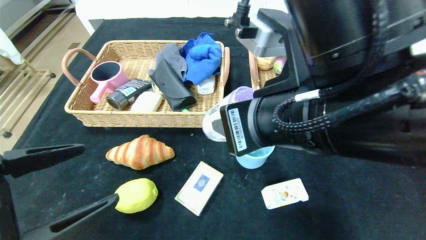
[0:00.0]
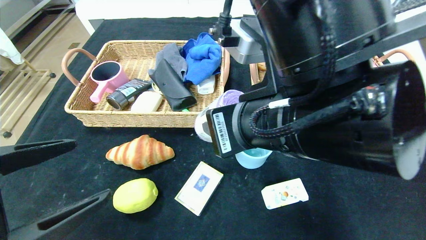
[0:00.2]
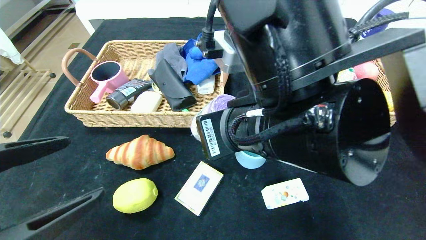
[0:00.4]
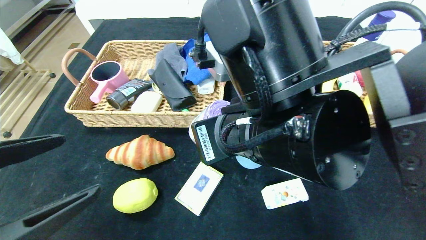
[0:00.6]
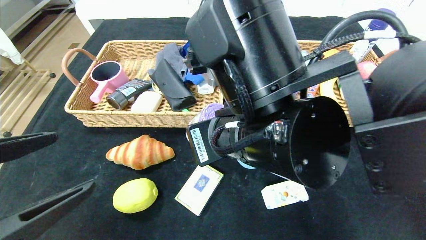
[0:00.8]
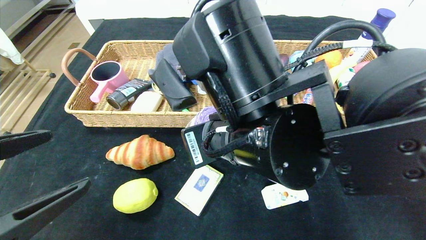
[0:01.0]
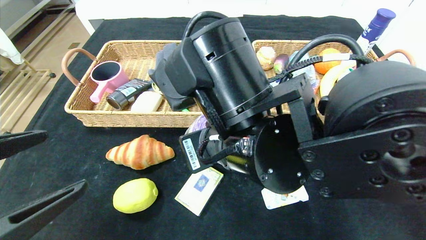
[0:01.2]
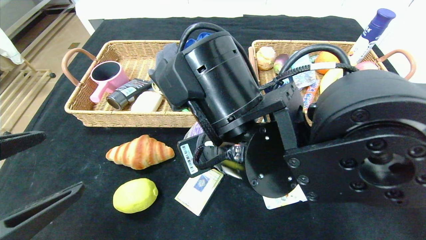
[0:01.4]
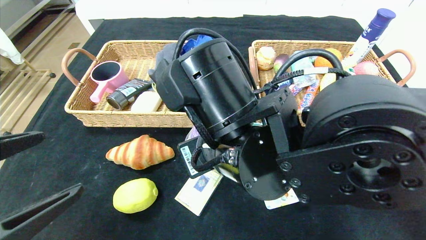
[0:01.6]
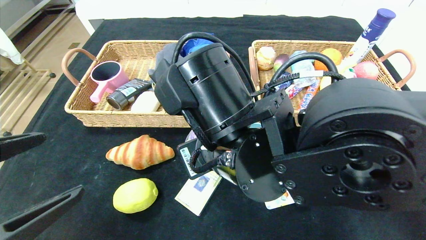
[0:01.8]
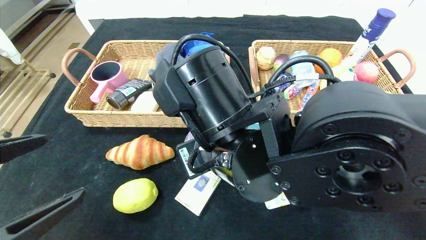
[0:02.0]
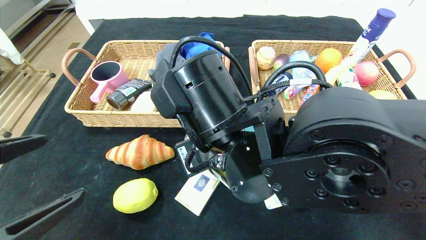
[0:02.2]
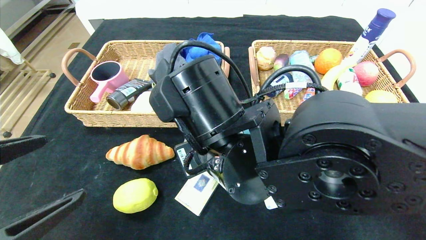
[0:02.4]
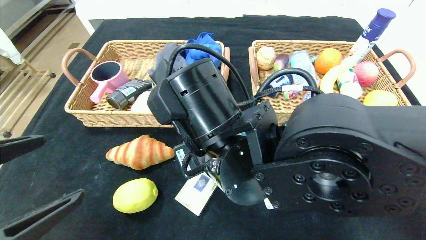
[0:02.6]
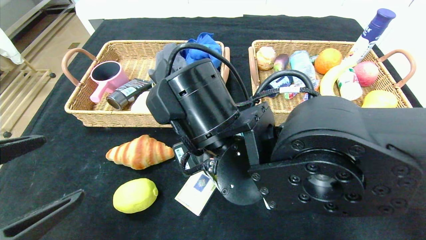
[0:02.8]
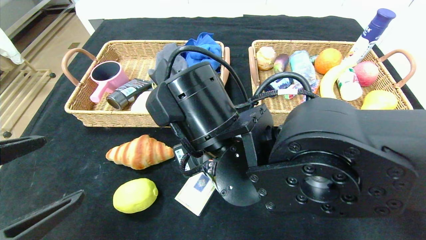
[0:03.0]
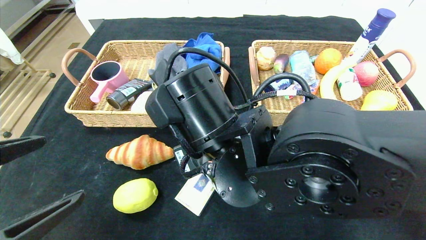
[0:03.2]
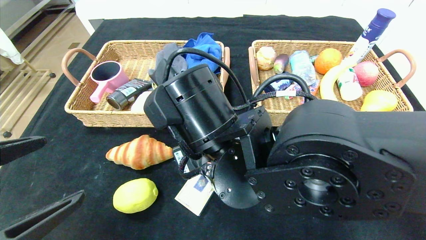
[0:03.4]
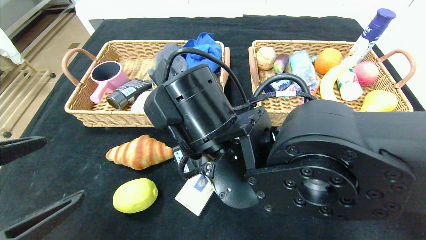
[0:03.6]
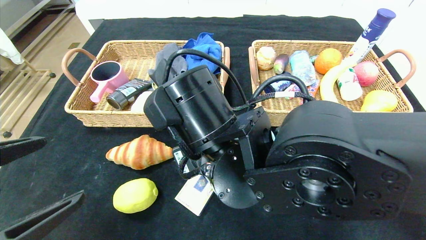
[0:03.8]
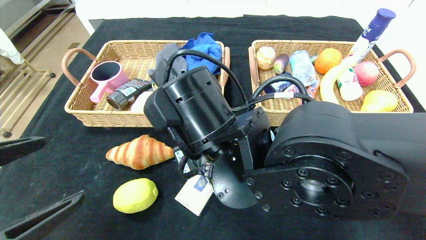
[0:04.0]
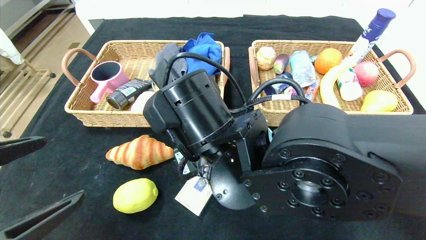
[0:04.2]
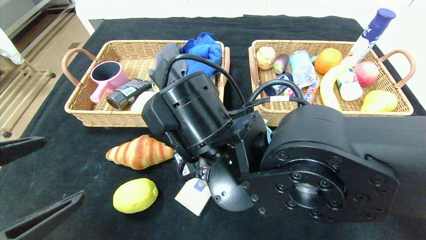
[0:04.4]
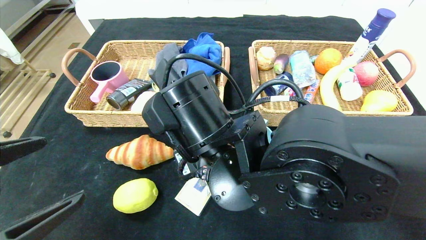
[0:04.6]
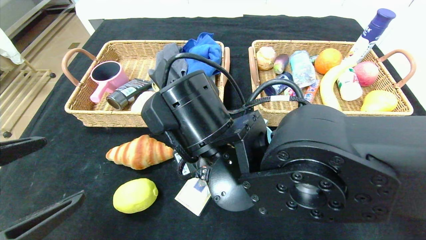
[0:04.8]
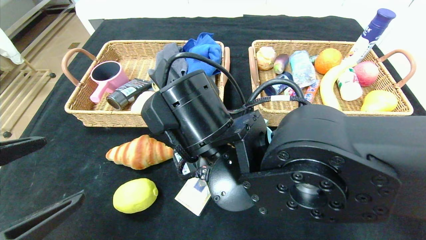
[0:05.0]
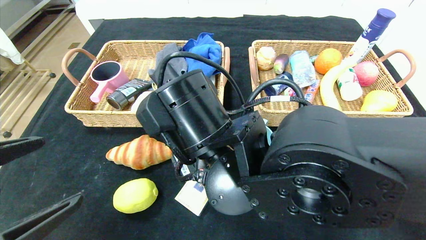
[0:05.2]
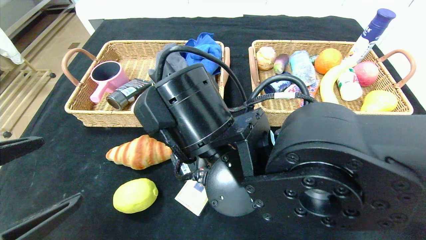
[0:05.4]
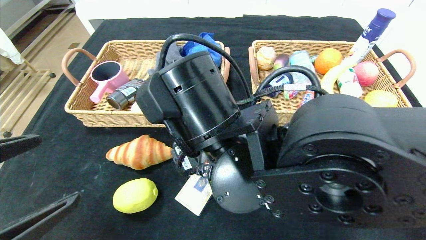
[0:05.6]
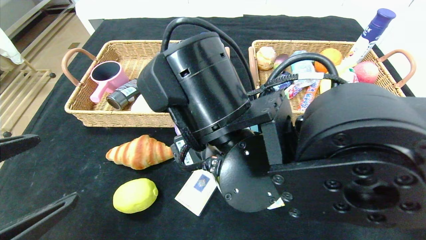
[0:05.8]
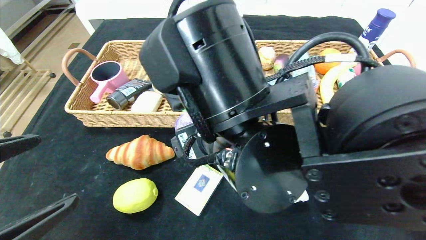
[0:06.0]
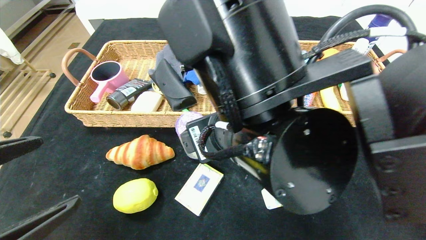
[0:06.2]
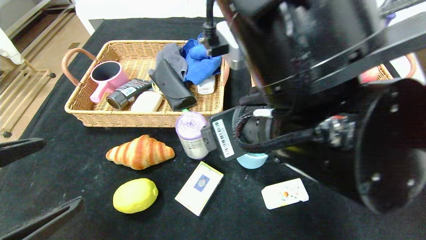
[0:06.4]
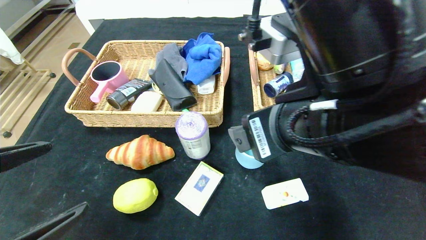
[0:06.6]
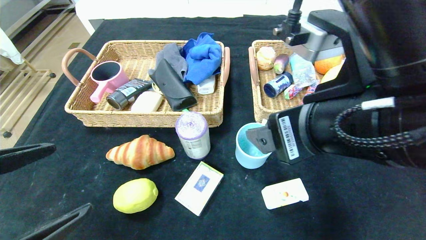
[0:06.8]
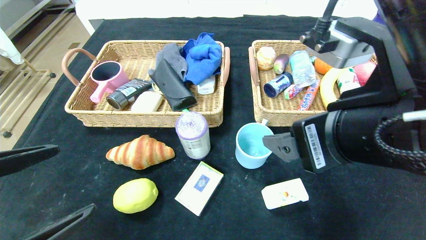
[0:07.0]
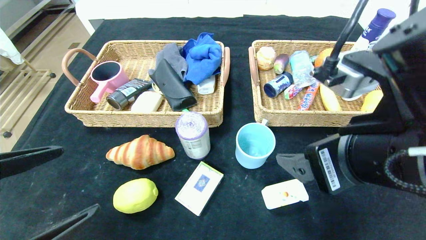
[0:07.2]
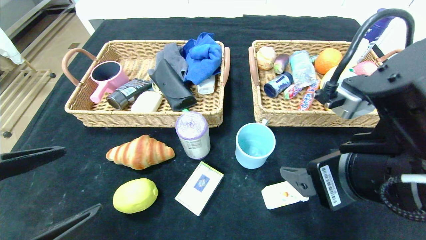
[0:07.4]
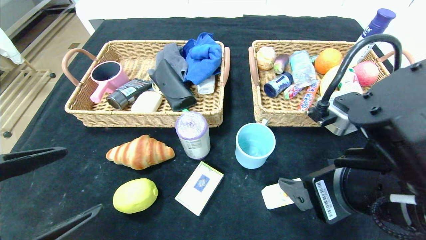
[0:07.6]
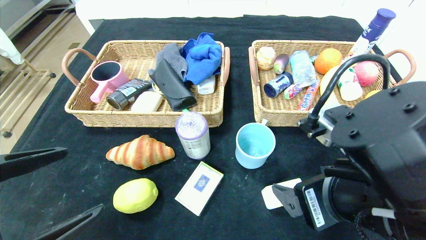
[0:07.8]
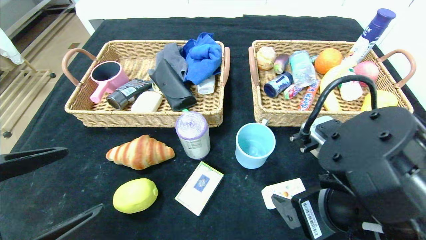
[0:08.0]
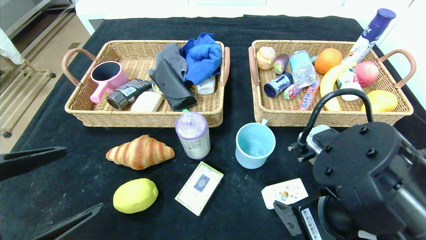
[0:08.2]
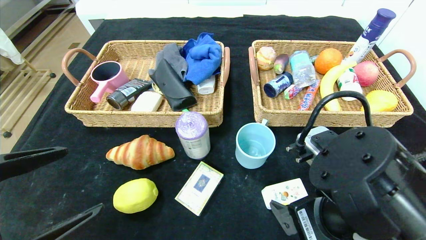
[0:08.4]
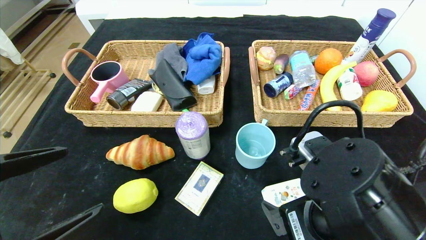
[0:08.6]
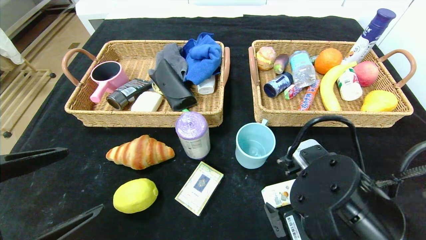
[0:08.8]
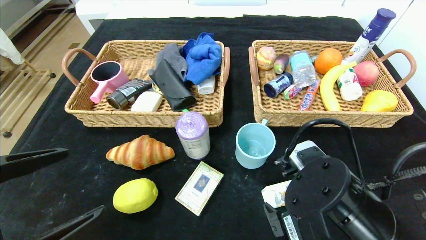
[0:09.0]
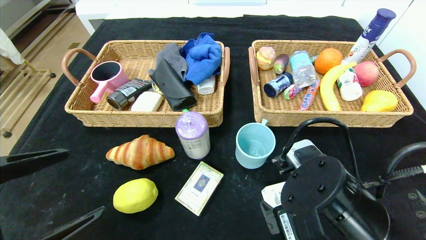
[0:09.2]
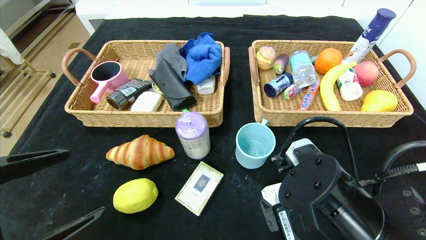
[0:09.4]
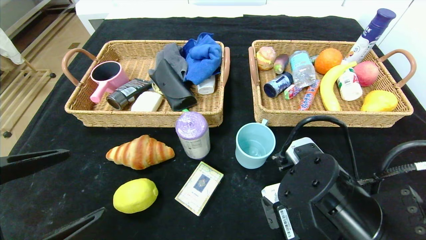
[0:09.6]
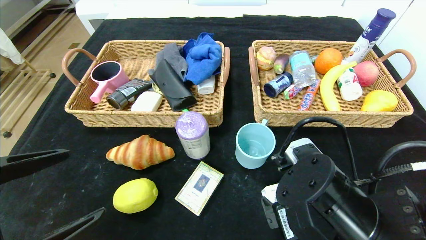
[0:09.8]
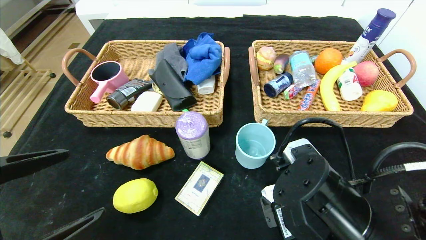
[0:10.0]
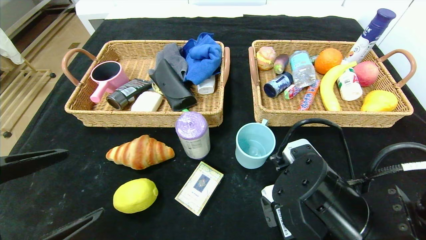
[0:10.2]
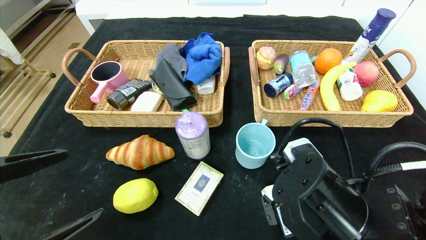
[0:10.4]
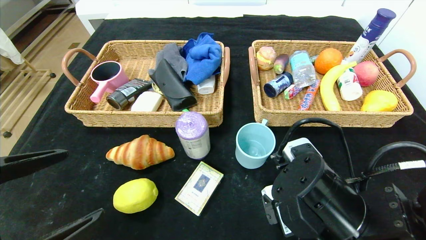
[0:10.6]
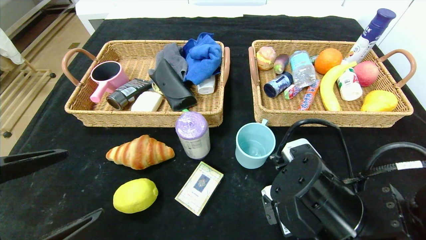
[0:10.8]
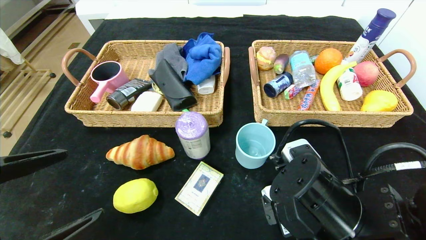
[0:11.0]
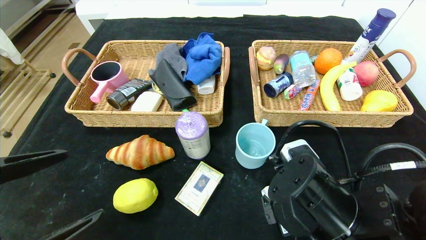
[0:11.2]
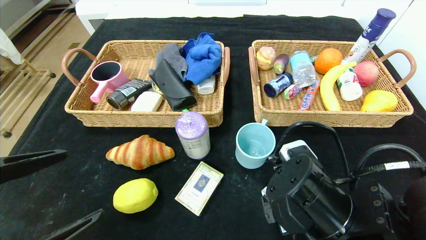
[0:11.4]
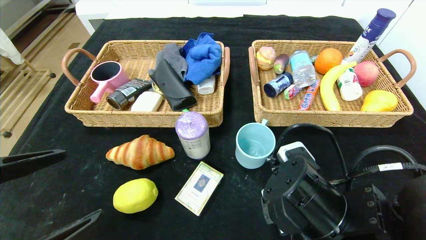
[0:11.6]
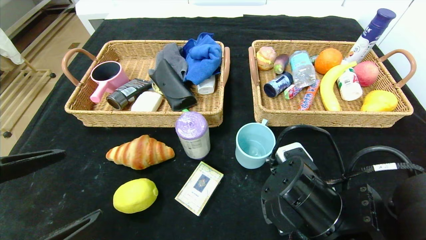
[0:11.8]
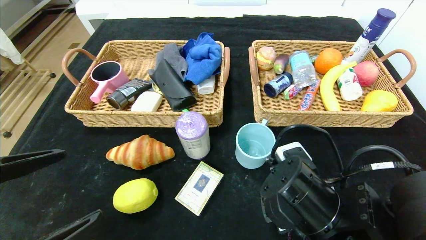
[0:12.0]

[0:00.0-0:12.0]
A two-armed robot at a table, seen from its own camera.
Step, 0:00.0 to 0:05.4: Place the purple garbage bag in the center of the table.
0:00.0 to 0:01.6: The right gripper travels to the left and downward by some 10 cm.
0:03.0 to 0:04.4: Neither gripper changes place.
0:04.4 to 0:06.0: The right gripper ends up roughly 5 cm from where it was, and opens its fingers.
0:06.0 to 0:07.6: The right gripper moves to the right, about 15 cm.
0:07.6 to 0:09.0: The right gripper moves downward, some 5 cm.
0:09.0 to 0:12.0: The grippers stay close to where they were, moving slightly.

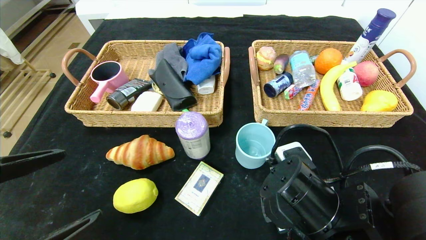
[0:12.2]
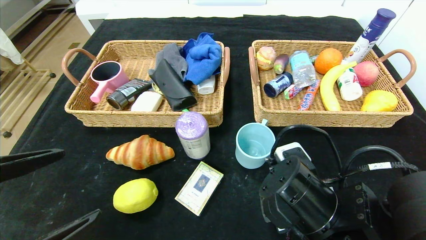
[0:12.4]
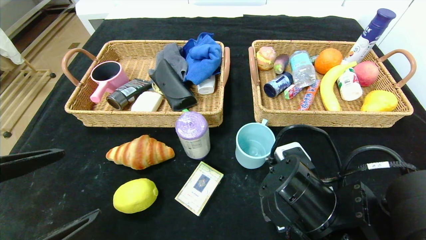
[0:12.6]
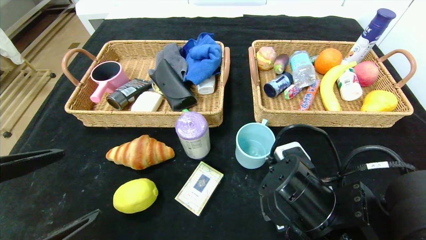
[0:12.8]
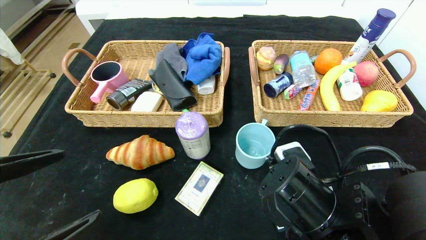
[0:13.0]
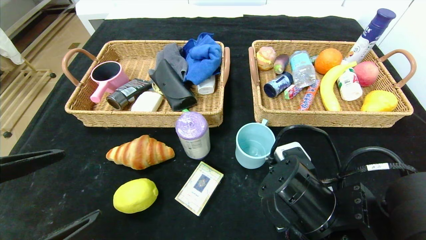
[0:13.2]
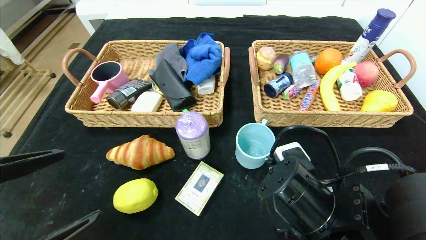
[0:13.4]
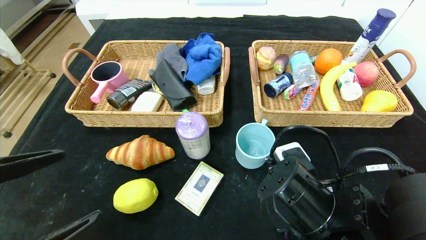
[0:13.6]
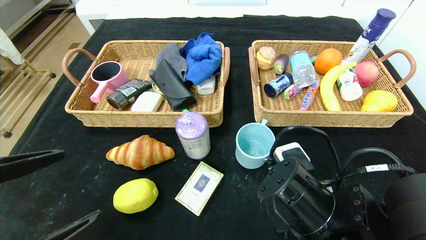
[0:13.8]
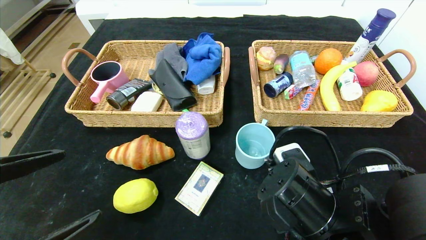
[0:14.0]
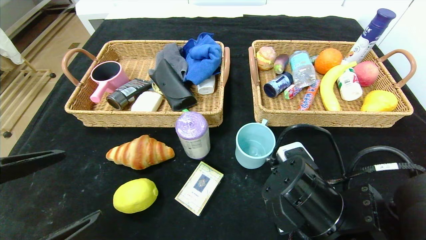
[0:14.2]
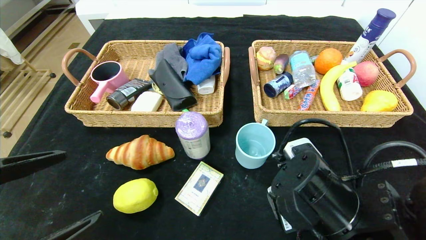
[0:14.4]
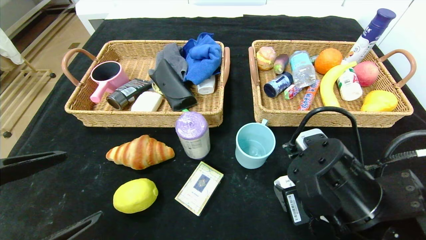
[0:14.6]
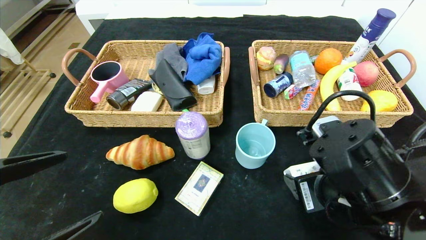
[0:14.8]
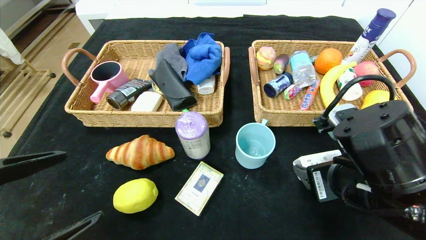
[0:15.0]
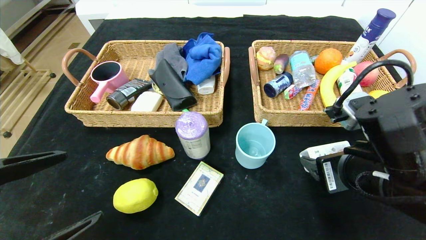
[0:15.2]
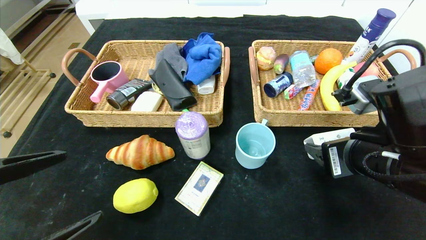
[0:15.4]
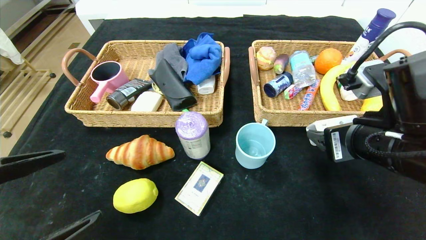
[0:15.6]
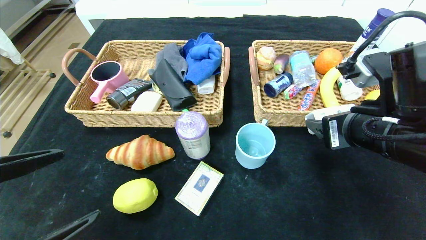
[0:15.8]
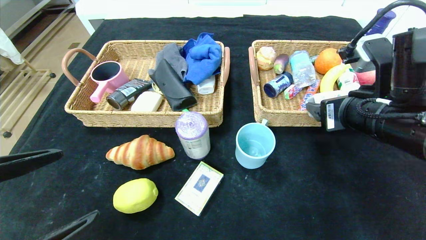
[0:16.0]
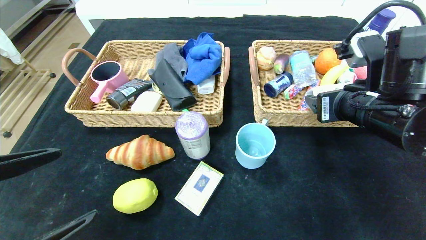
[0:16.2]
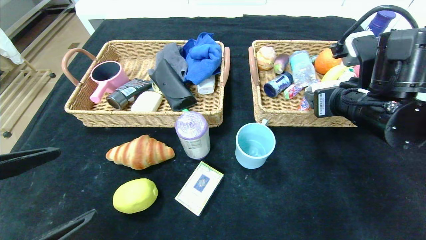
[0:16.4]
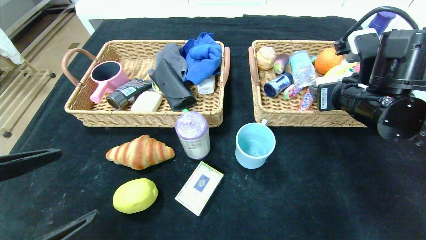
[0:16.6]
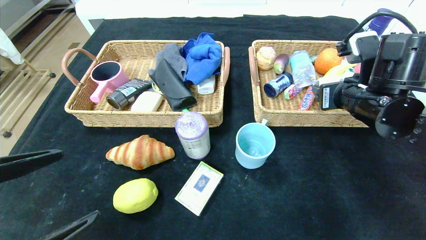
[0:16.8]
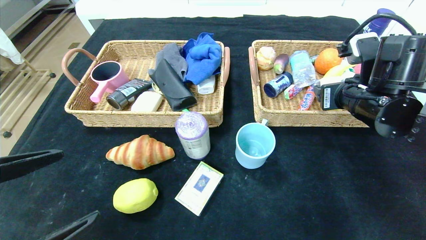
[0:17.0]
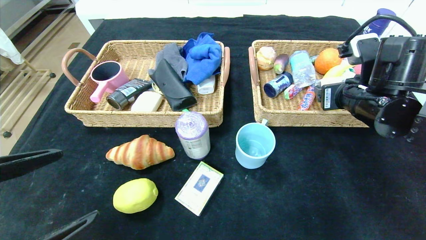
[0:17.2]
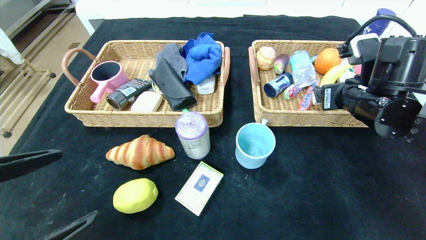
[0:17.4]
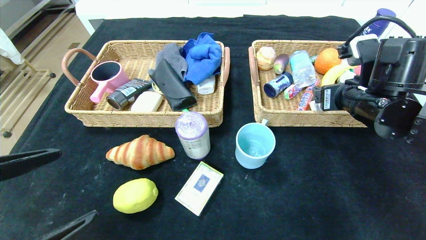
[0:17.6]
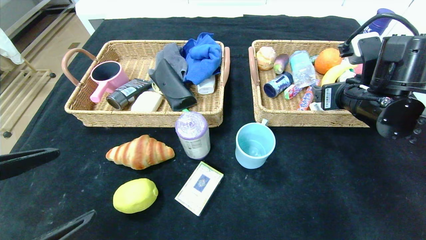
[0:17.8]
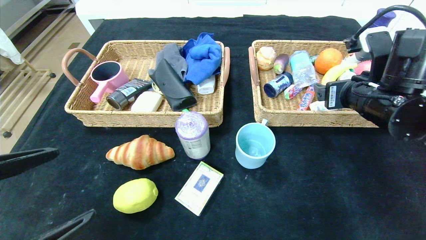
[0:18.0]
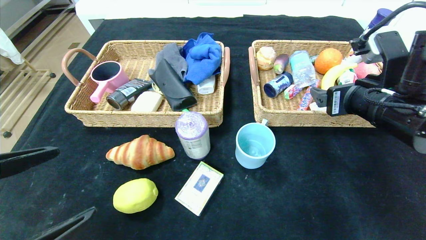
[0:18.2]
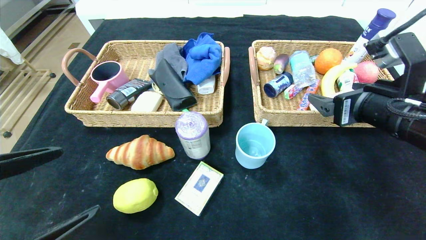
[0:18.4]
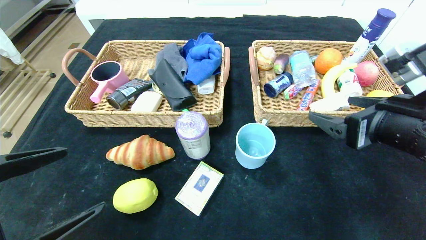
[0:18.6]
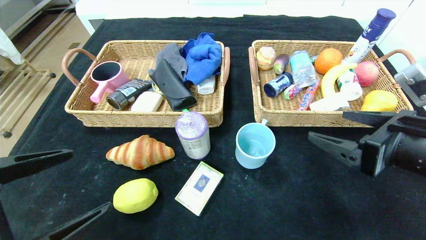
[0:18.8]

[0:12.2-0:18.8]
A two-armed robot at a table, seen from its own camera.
Step, 0:12.2 to 0:17.8: Grasp the square chewing gum and put it in the right basket.
0:12.2 to 0:13.8: The right gripper closes.
0:13.8 to 0:15.4: The right gripper shifts approximately 10 cm upward and to the right.
0:15.4 to 0:17.2: The right gripper heads forward, covering approximately 10 cm.
0:17.2 to 0:18.8: The right gripper shifts about 10 cm backward.
